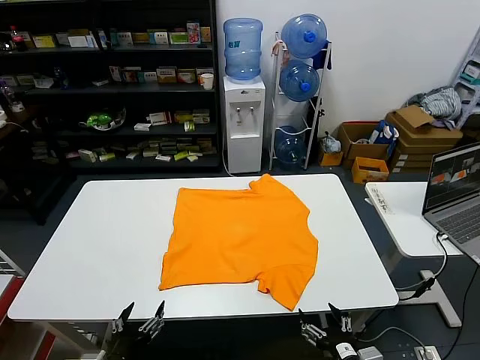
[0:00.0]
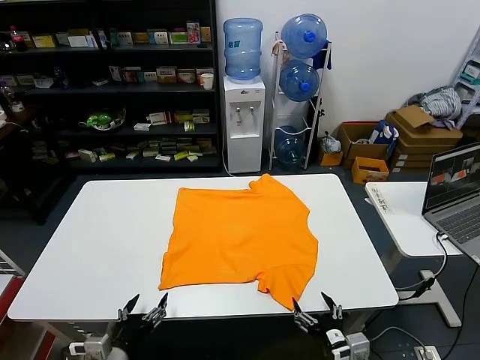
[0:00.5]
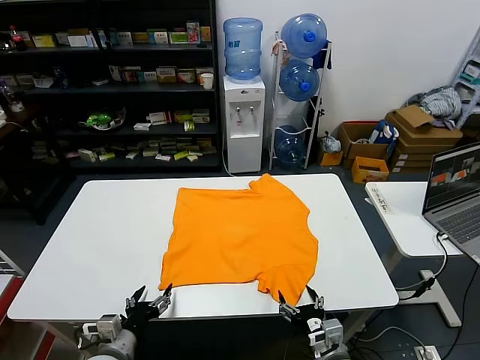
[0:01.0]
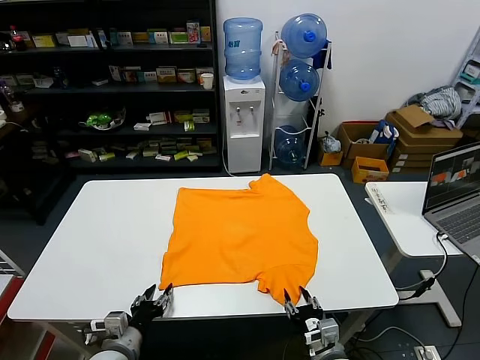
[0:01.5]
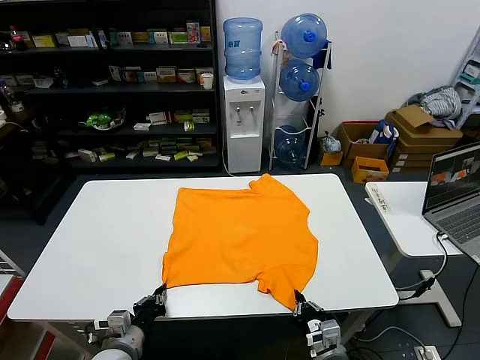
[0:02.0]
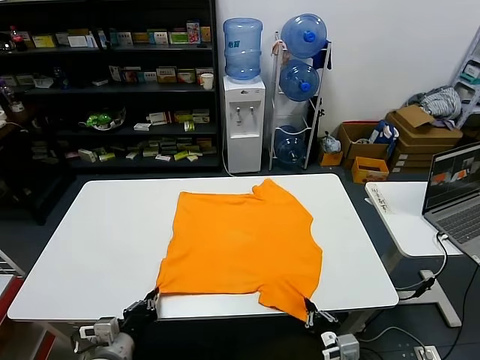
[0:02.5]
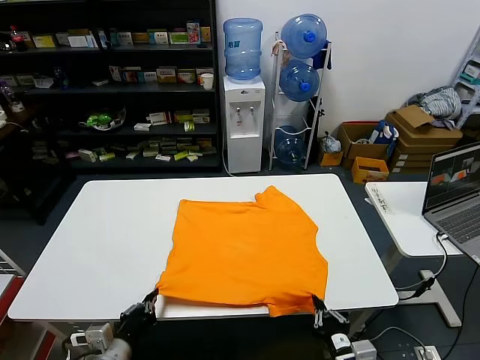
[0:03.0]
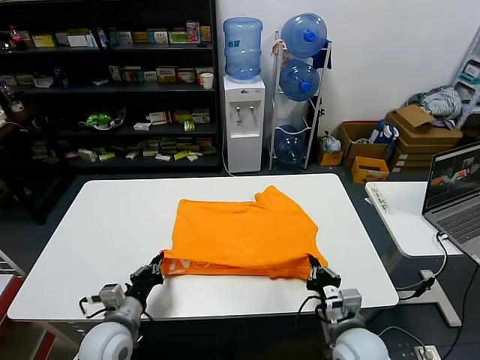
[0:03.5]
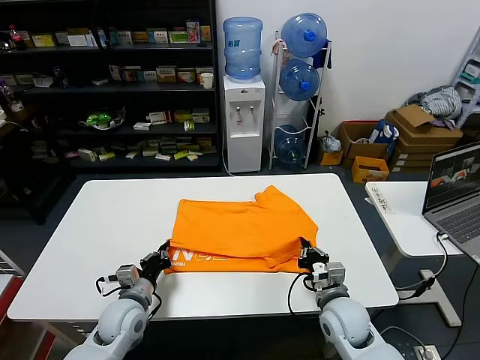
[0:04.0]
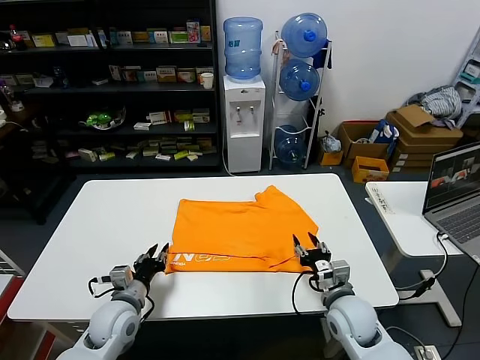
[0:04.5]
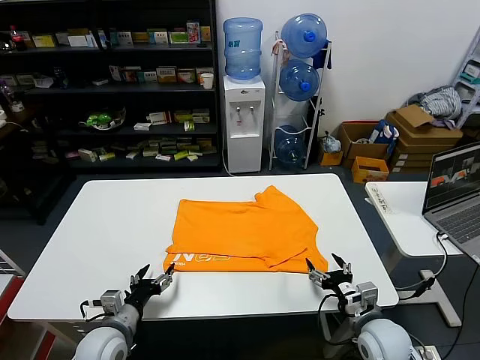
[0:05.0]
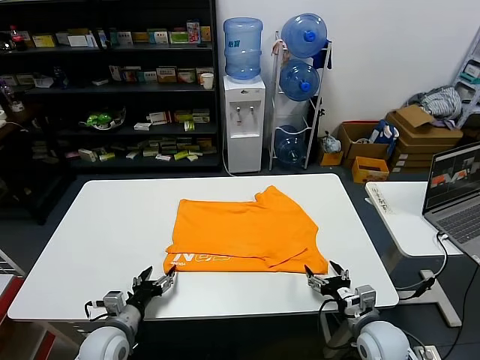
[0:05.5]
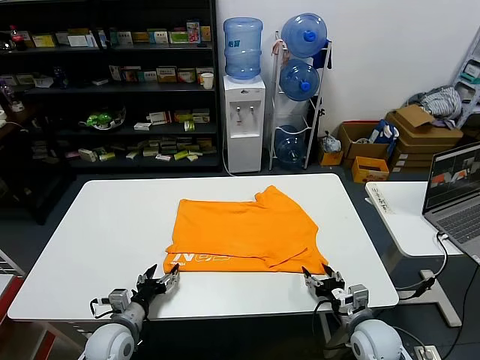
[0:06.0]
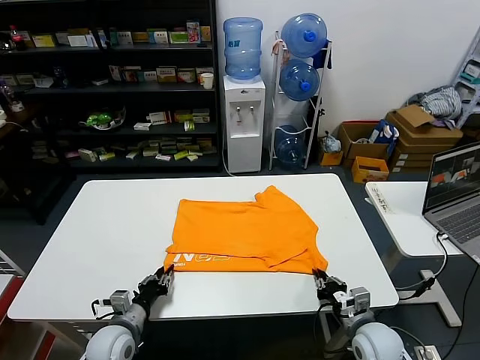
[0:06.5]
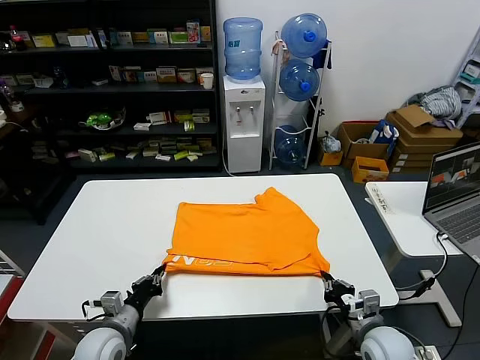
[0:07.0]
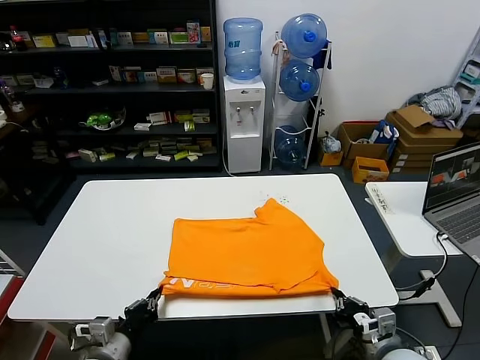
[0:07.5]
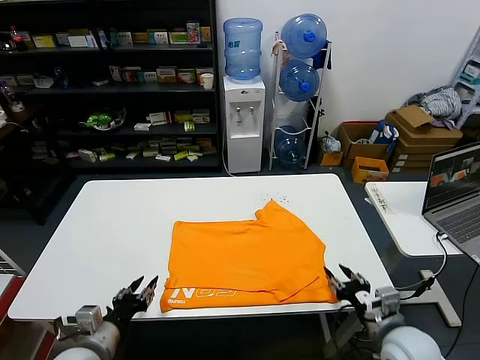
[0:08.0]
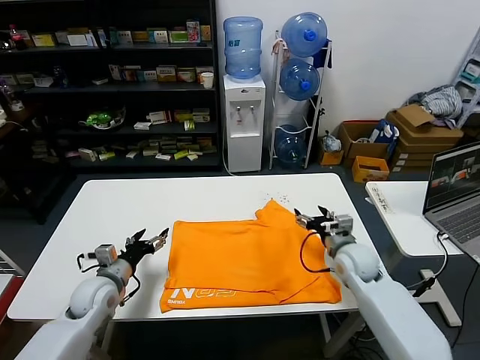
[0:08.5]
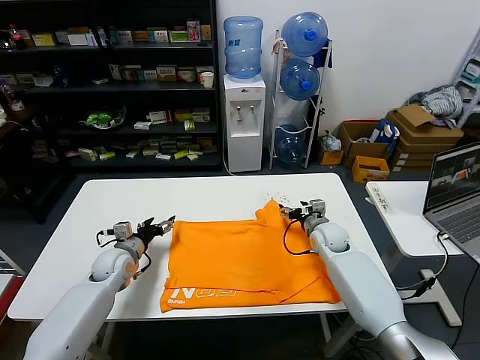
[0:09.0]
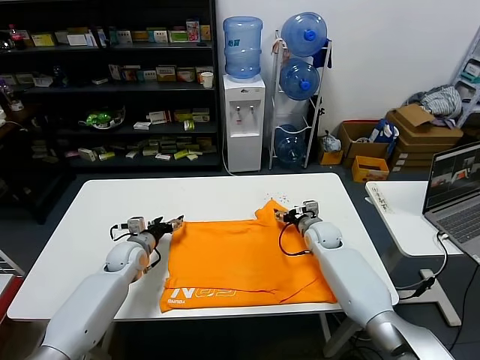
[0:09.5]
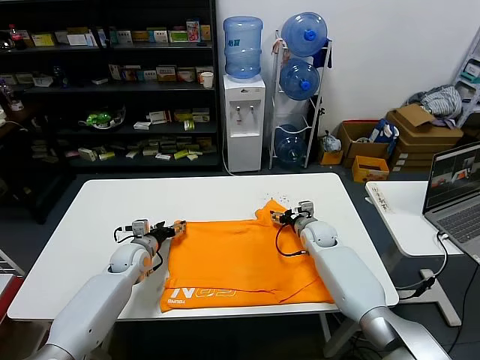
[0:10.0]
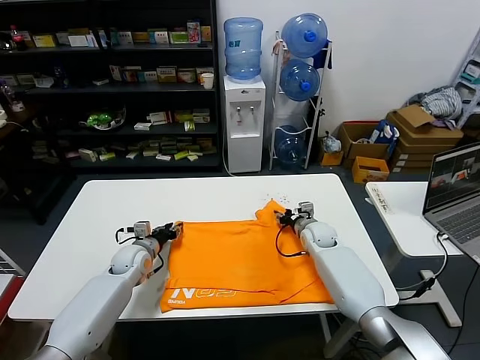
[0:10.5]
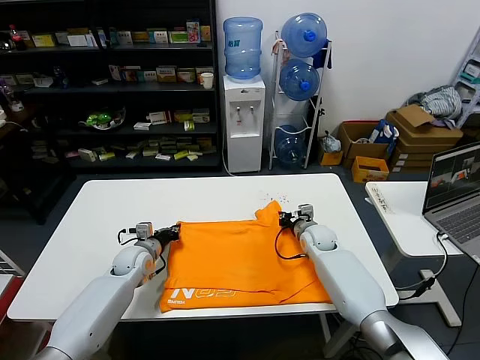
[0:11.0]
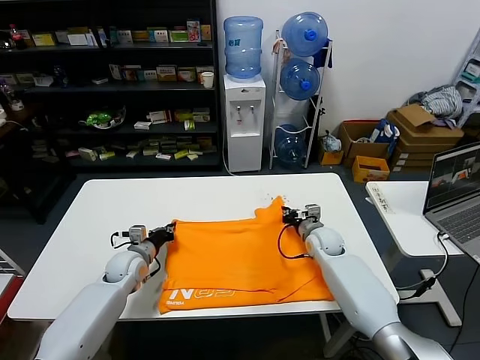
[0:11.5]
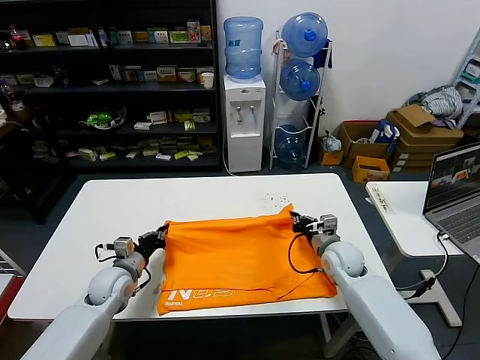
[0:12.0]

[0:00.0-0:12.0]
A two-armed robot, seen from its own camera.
Task of the whole recording: fold and organize the clothes.
Step, 0:00.0 to 0:02.0: use both grippers simultaneously to clamp the lower edge of the clothing fabric.
Step, 0:02.5 to 0:04.0: use both grippers to drag the lower edge of the fabric forward and fold it over the upper edge.
Step, 0:04.5 to 0:07.5: Drag the clothes downward with both gripper.
Step, 0:08.0 to 0:11.0: use both grippers simultaneously to clamp the upper edge of the clothing fabric.
0:02.0 to 0:04.0: The grippers both shift forward by approximately 10 cm.
0:04.0 to 0:06.0: The left gripper shifts by approximately 5 cm, and opens its fingers; the right gripper goes roughly 5 cm to the right, and opens its fingers.
0:06.0 to 0:08.0: The right gripper travels upward and backward by approximately 10 cm, and closes and opens again; the left gripper travels backward and upward by approximately 10 cm, and closes, then opens again.
0:08.0 to 0:10.0: The two grippers go about 30 cm forward. The left gripper opens. The right gripper opens up.
0:10.0 to 0:12.0: Both grippers travel together backward, some 10 cm. The right gripper closes up; the left gripper closes its fingers.

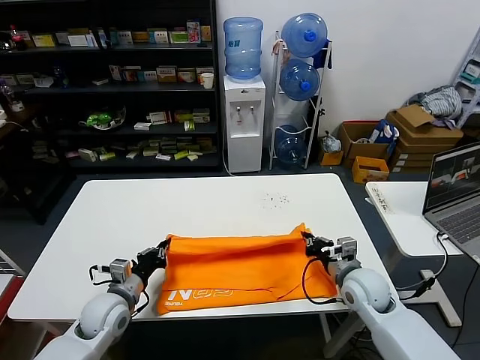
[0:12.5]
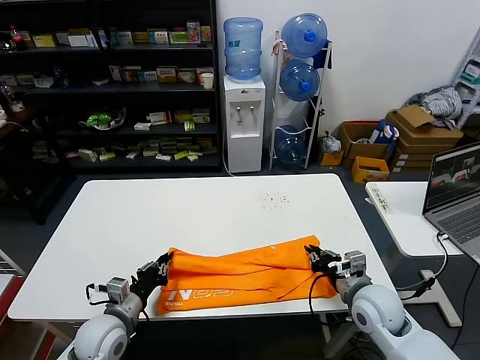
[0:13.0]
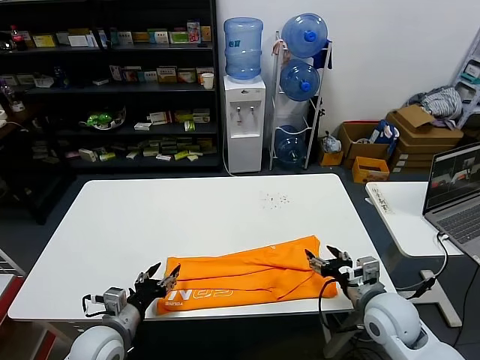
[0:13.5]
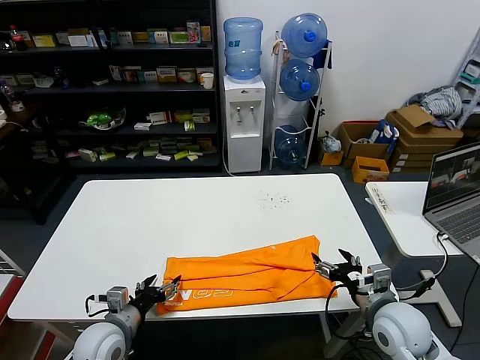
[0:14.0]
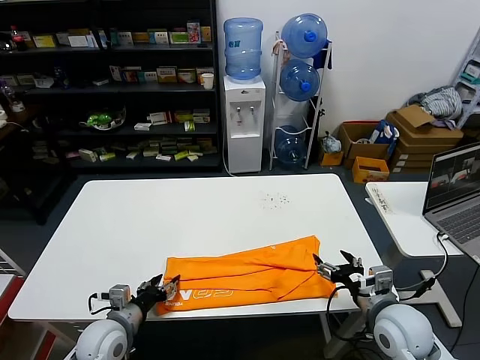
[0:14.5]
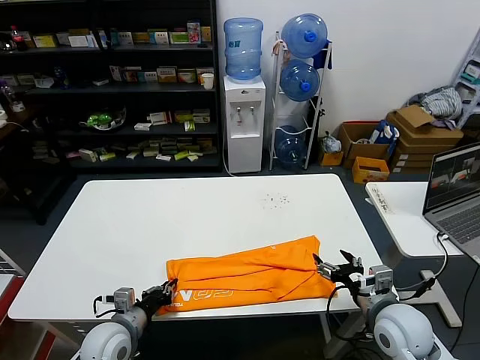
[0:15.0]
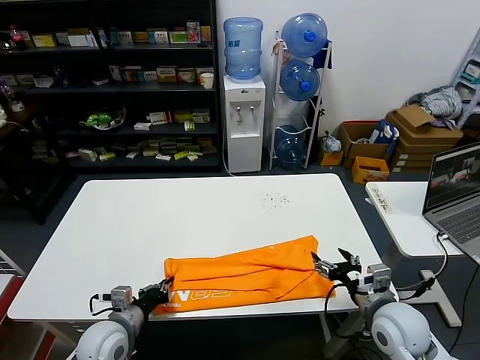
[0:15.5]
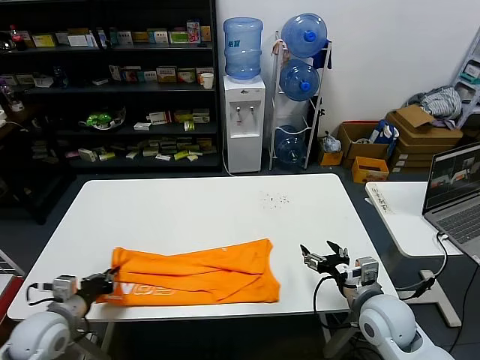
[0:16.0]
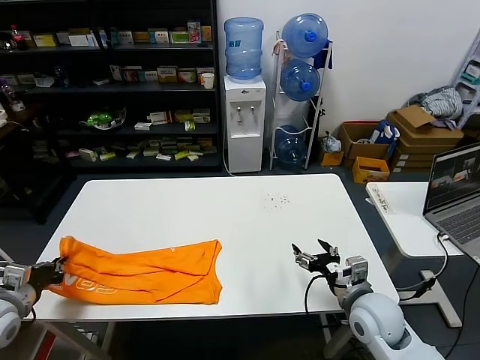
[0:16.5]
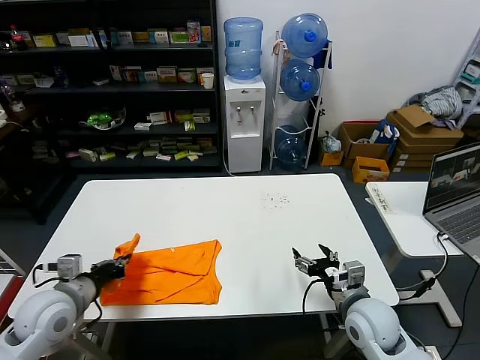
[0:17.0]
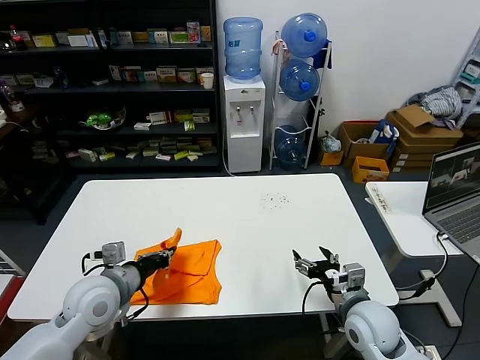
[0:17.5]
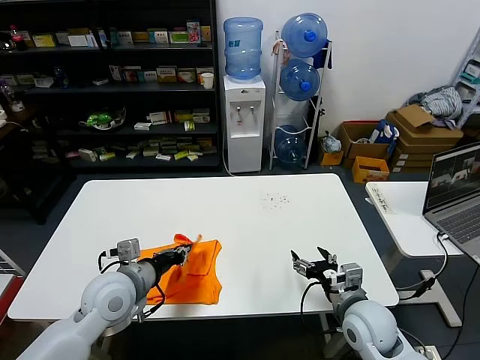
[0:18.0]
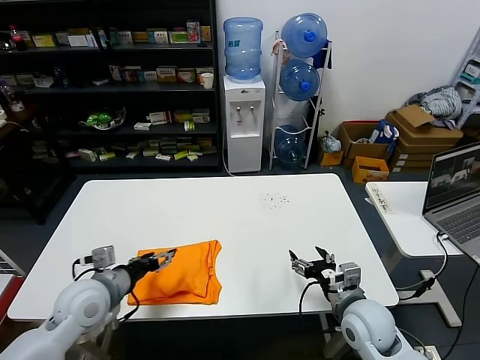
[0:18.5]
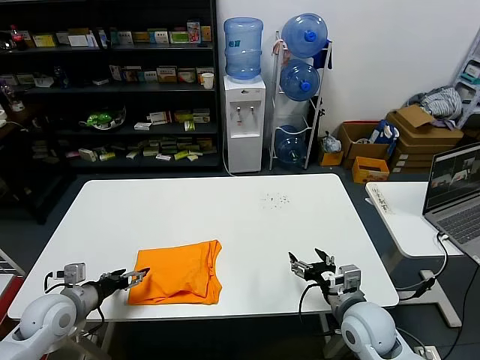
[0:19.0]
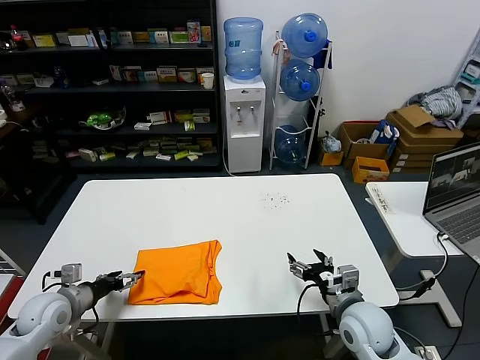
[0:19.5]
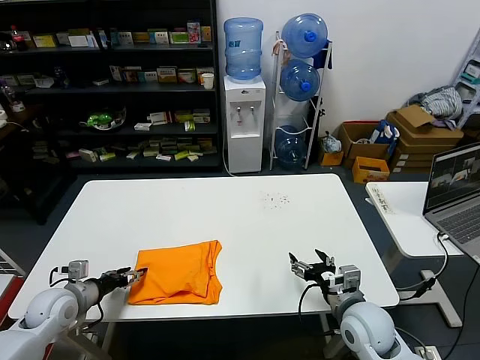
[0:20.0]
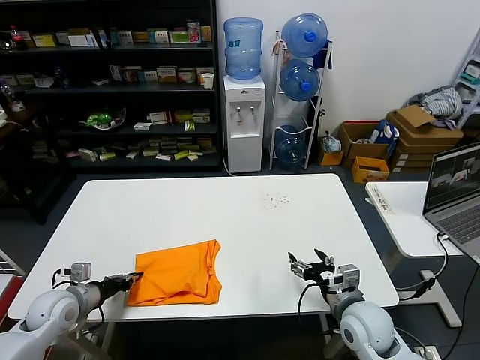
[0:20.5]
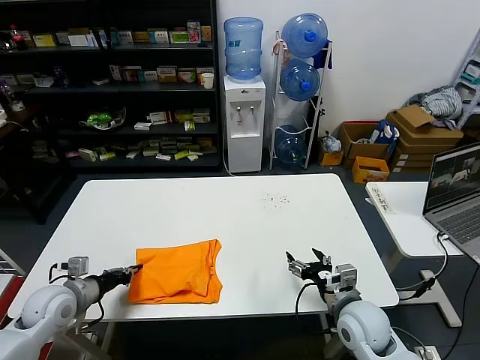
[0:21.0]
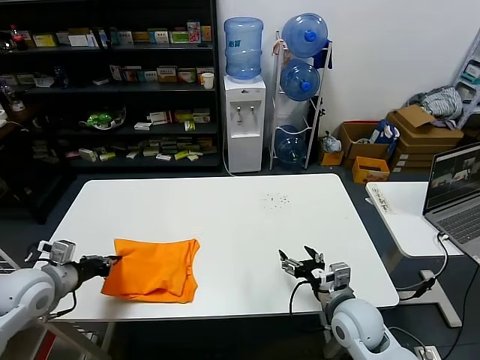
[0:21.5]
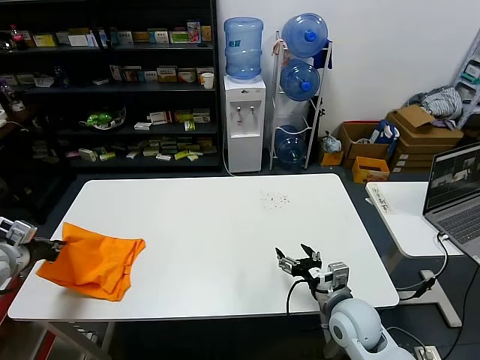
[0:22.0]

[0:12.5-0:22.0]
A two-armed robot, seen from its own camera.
Task of the whole recording: fold and organize the clothes.
Step, 0:13.5 to 0:15.0: use the left gripper to clamp the left edge of the fabric.
Step, 0:15.5 to 0:18.0: use the left gripper to drag the left edge of the fabric to the left and folds it over the right edge.
0:12.5 to 0:14.5: The right gripper travels backward by roughly 10 cm, and opens its fingers. The left gripper goes some 5 cm backward, and opens its fingers.
0:14.5 to 0:16.5: The left gripper travels to the left and upward by approximately 20 cm, and closes its fingers.
0:16.5 to 0:18.0: The left gripper moves to the right, approximately 25 cm.
0:18.0 to 0:20.0: The left gripper goes roughly 20 cm to the left and downward, and opens up.
0:20.0 to 0:22.0: The left gripper goes about 15 cm upward and to the left, and closes up.

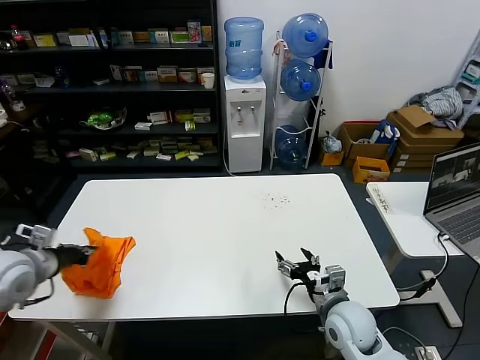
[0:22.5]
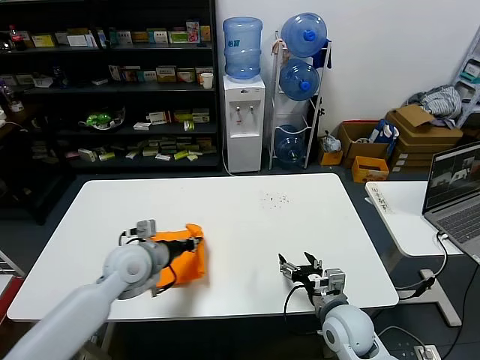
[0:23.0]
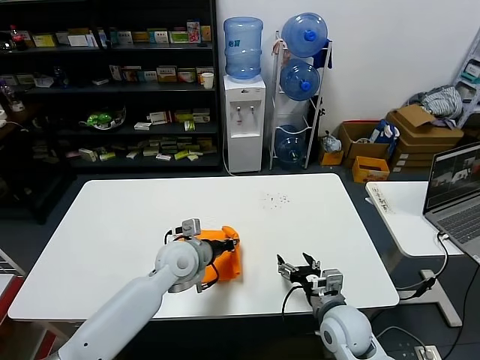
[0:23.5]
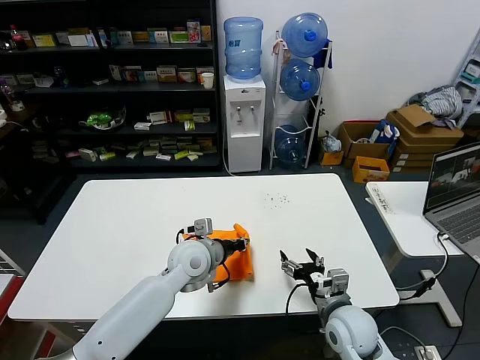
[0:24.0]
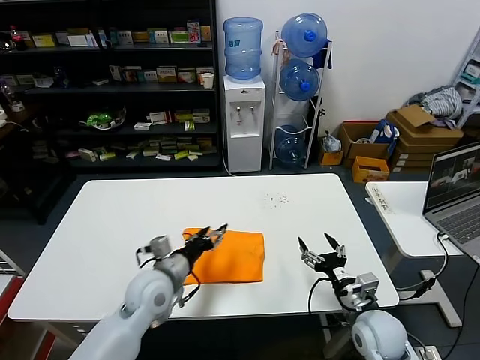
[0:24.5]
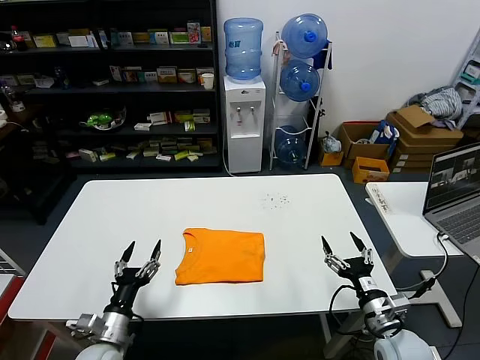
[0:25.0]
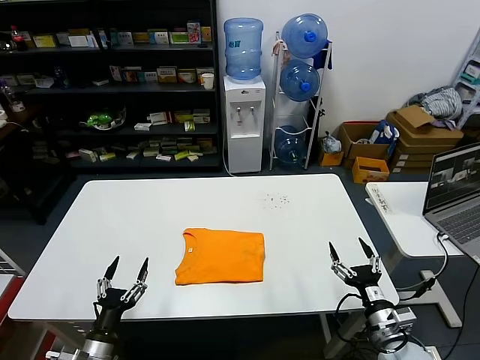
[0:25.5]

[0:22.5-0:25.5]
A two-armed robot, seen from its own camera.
Task of the whole recording: fold and organize the clothes.
0:22.5 to 0:24.0: The left gripper goes about 35 cm to the right.
0:24.0 to 0:25.5: The right gripper travels to the right and backward by roughly 10 cm. Meanwhile the left gripper travels backward, to the left and downward by approximately 35 cm, and opens up.
